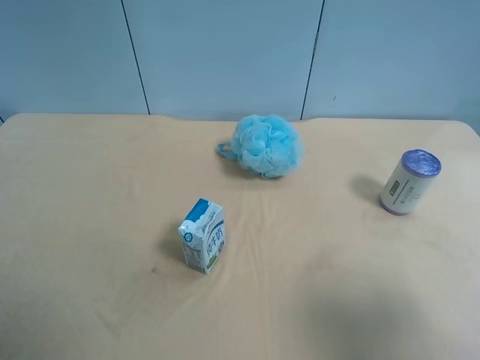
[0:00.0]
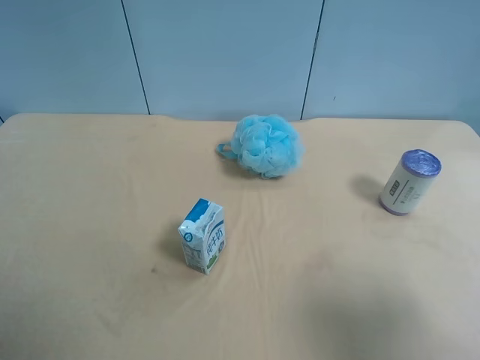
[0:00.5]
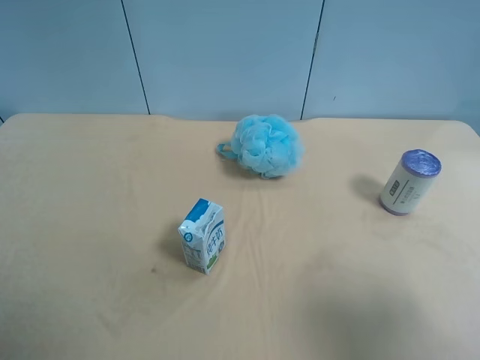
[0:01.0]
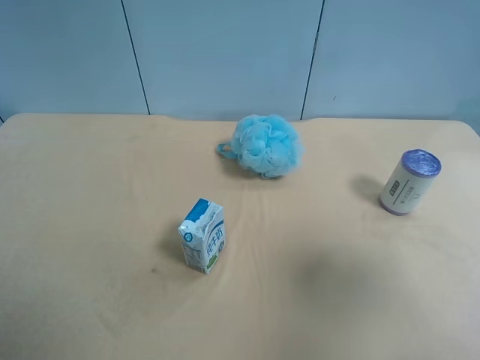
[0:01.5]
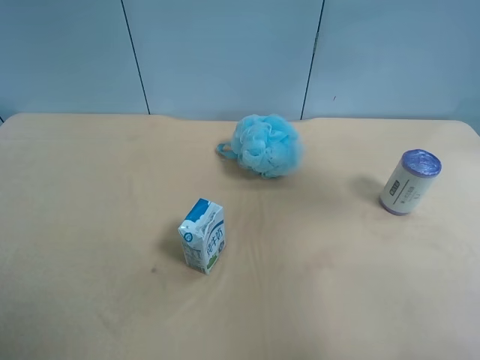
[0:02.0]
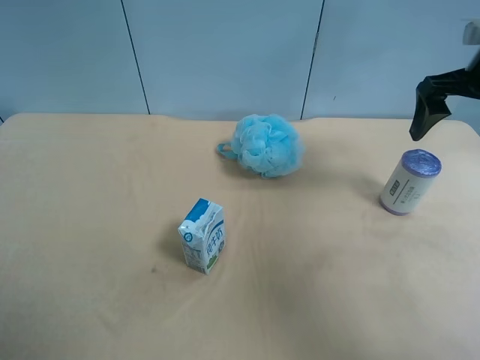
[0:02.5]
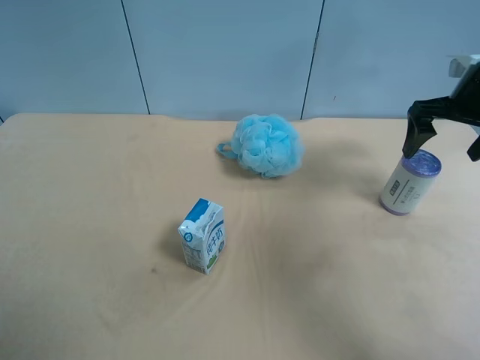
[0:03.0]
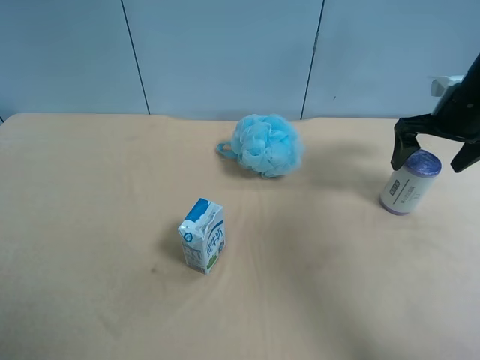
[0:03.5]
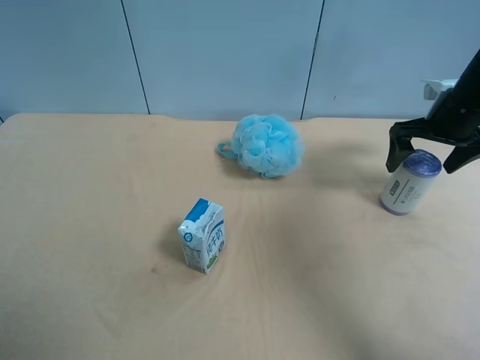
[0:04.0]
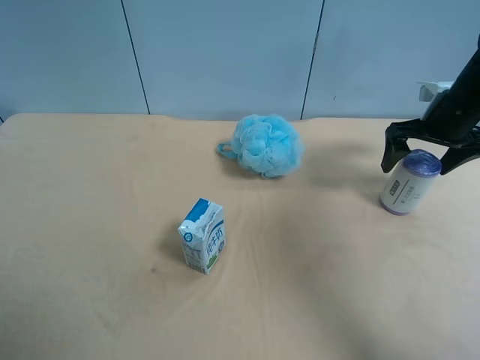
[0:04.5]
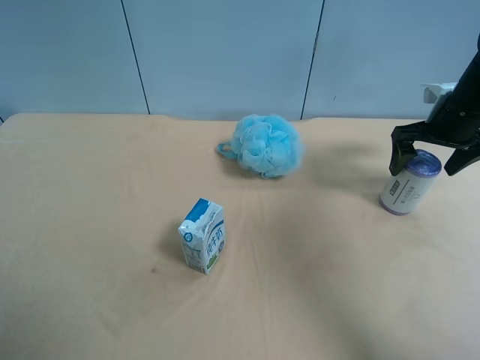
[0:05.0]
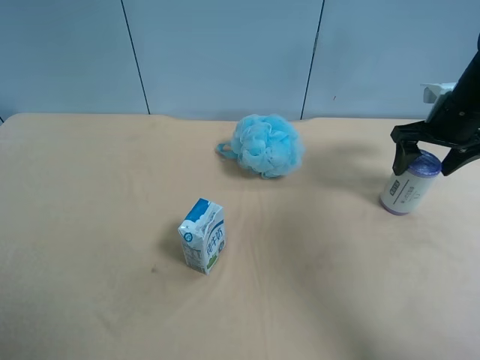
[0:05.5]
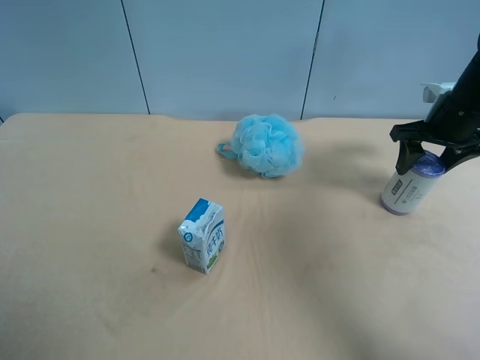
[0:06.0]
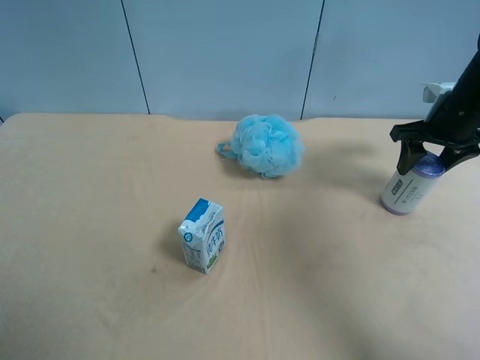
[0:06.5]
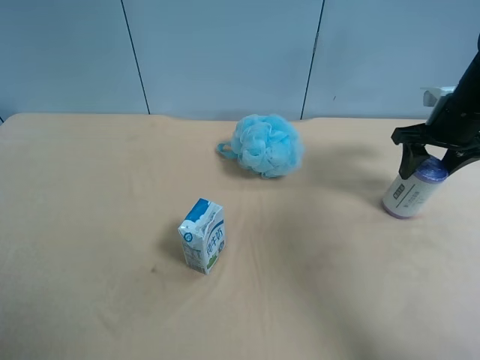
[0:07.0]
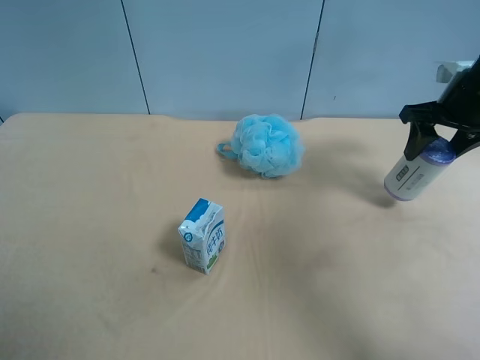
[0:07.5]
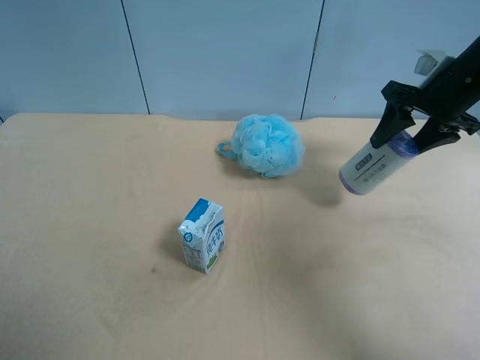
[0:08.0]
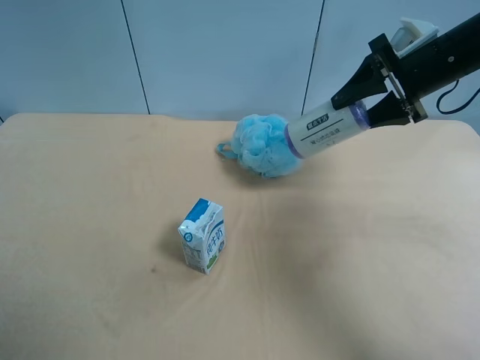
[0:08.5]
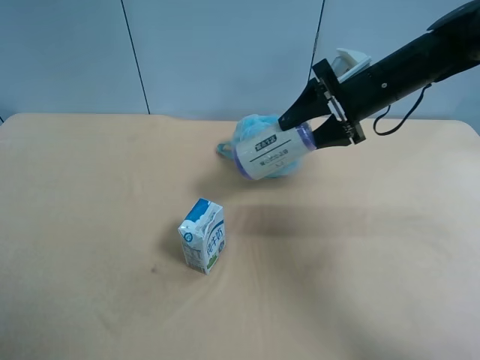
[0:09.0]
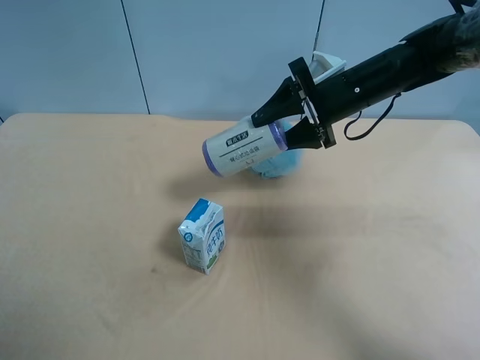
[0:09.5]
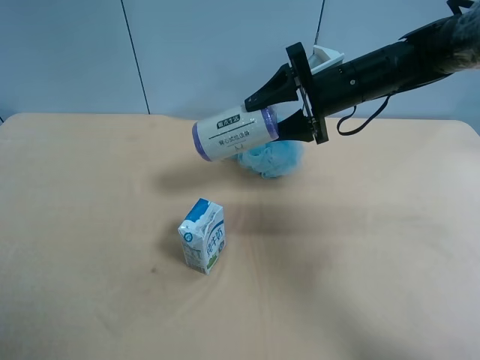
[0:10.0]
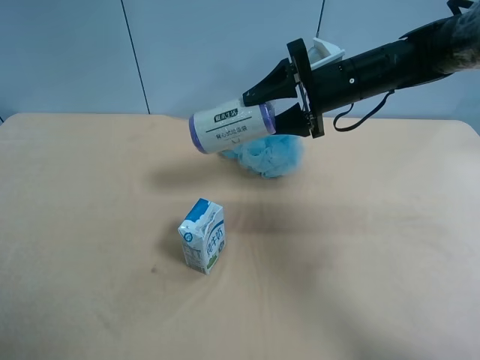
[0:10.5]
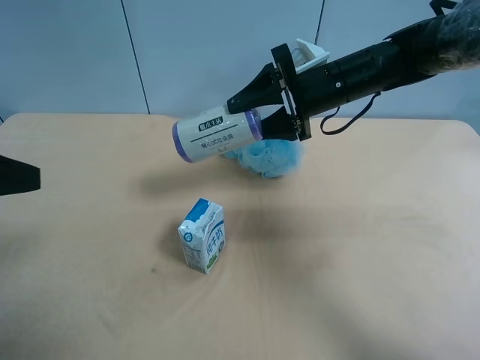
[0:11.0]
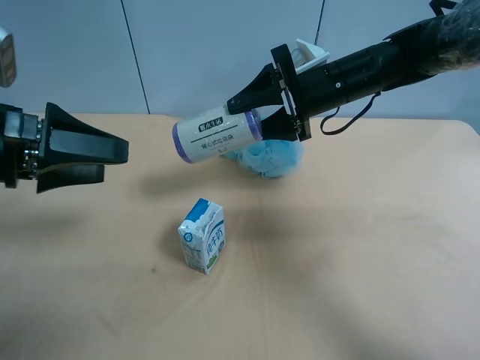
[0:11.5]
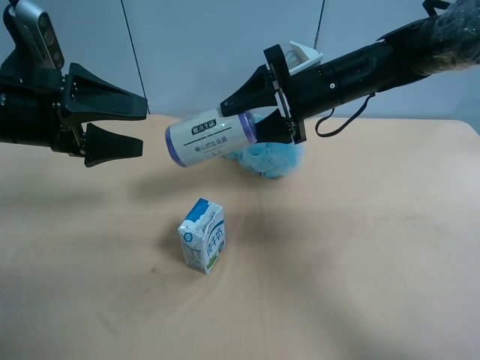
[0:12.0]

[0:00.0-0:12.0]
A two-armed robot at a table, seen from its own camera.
Task of the whole recording: use the right gripper to pick up the item and transfer it from the right gripper to the left gripper.
0.0 to 2.0 s: The right gripper shifts roughly 25 cm forward and upward.
2.0 to 4.0 s: The right gripper goes some 20 cm downward and forward.
4.0 to 6.0 s: The right gripper closes its fingers.
6.0 to 8.0 s: The right gripper goes approximately 5 cm upward.
8.0 to 10.0 s: The right gripper is displaced to the left by roughly 15 cm.
10.0 to 12.0 s: The left gripper shifts roughly 25 cm forward.

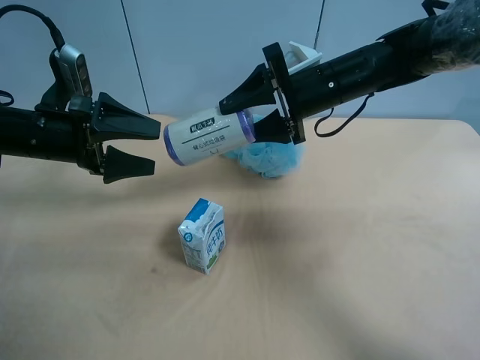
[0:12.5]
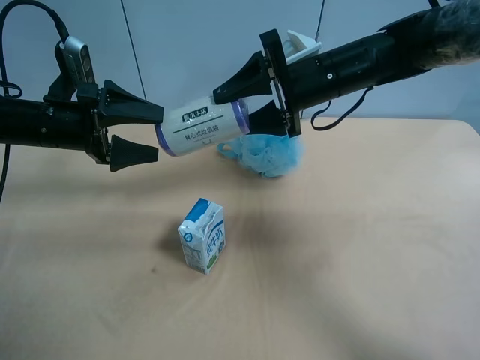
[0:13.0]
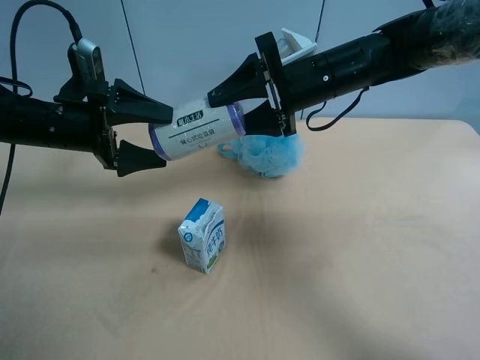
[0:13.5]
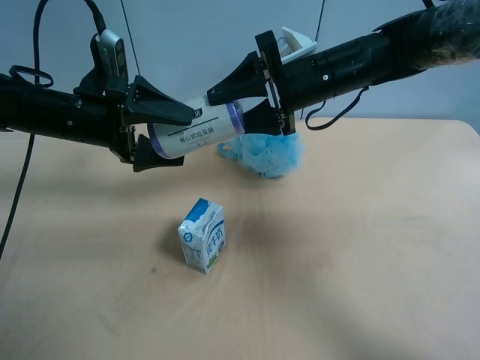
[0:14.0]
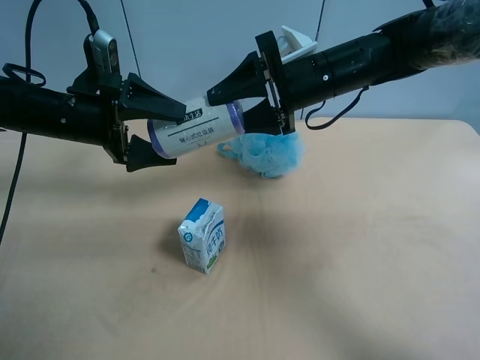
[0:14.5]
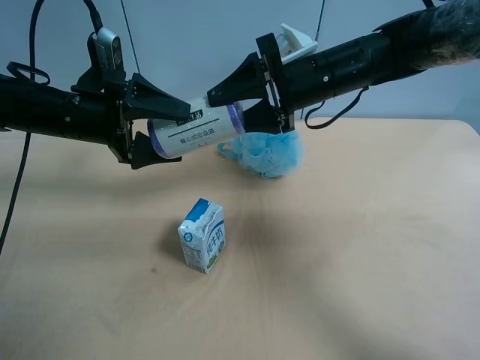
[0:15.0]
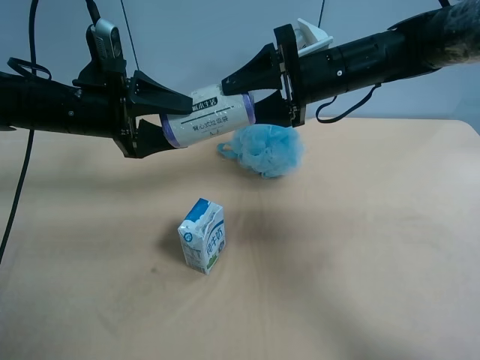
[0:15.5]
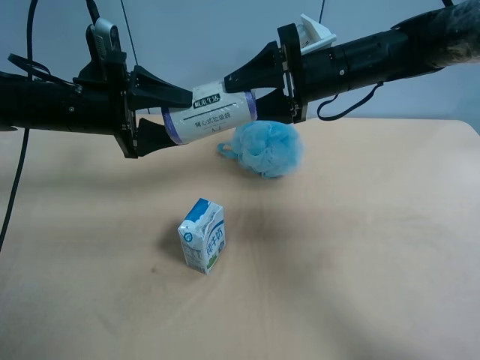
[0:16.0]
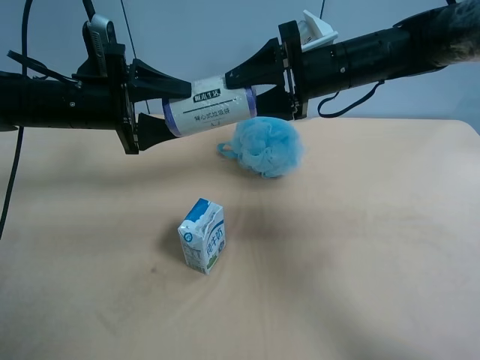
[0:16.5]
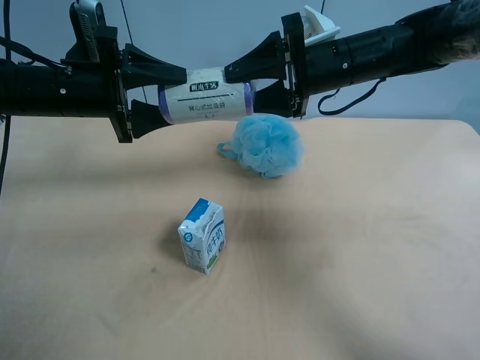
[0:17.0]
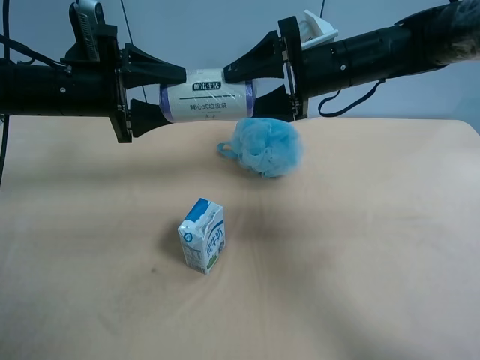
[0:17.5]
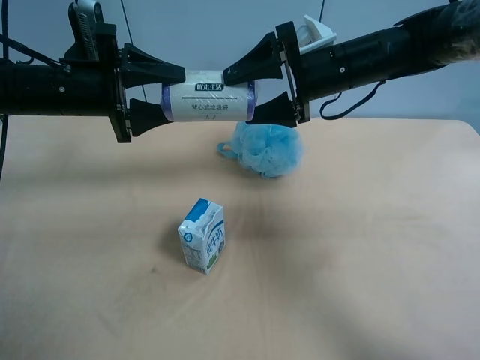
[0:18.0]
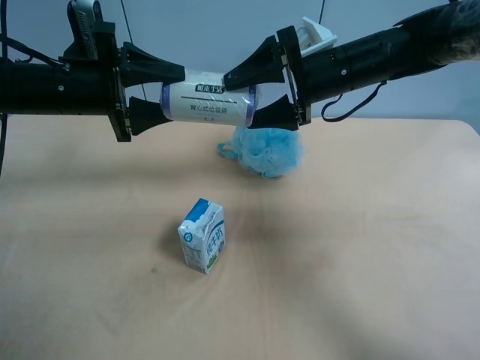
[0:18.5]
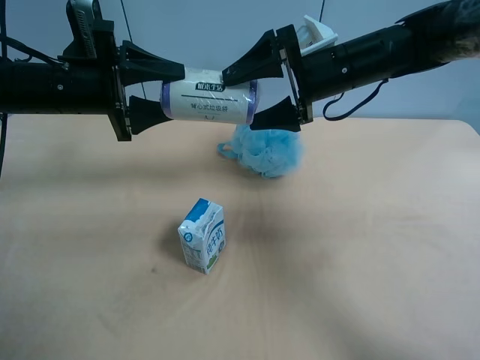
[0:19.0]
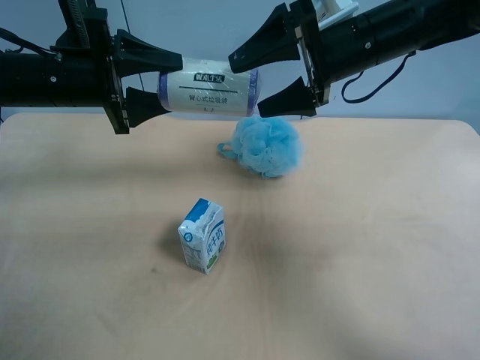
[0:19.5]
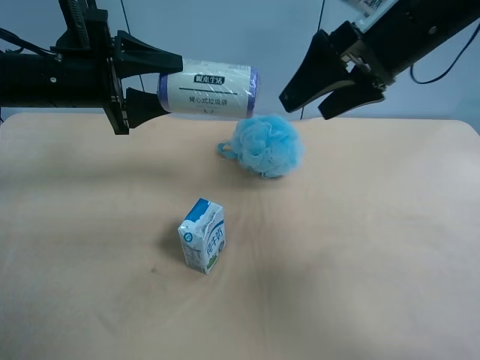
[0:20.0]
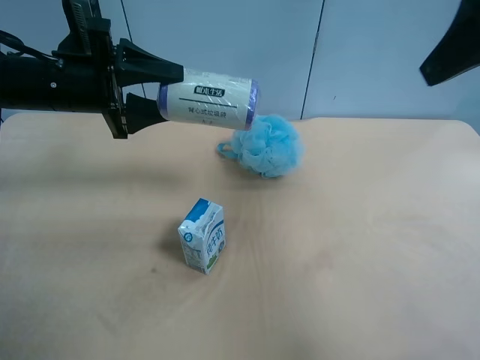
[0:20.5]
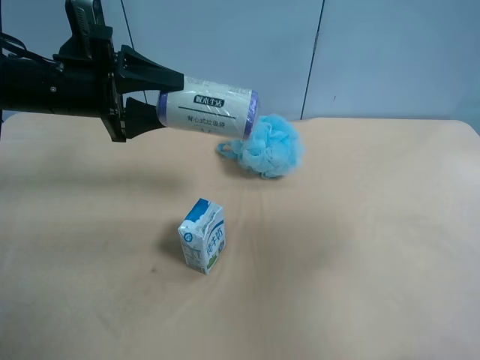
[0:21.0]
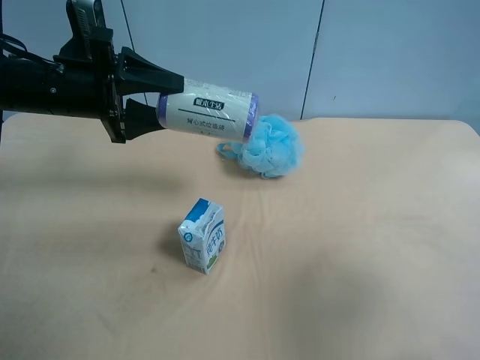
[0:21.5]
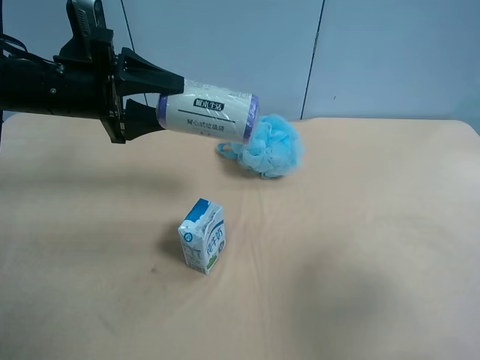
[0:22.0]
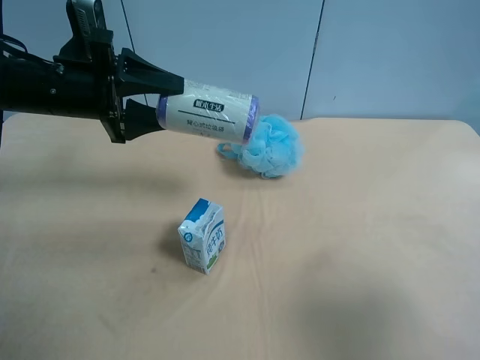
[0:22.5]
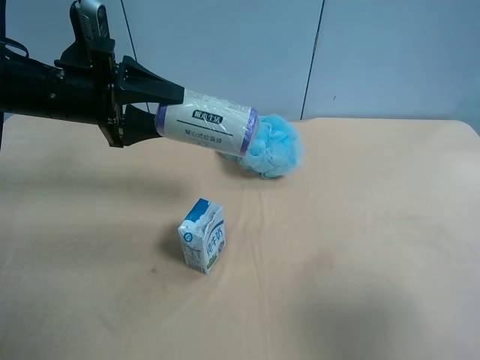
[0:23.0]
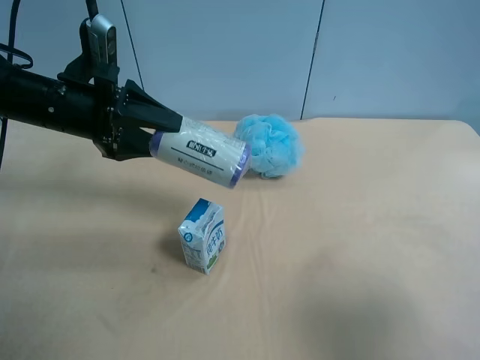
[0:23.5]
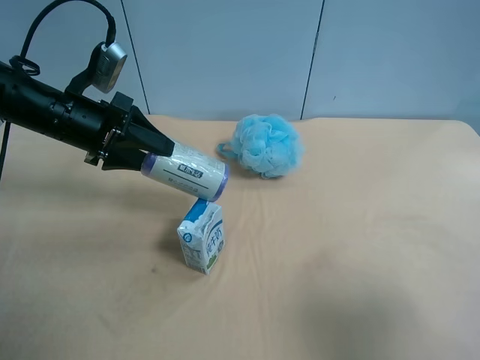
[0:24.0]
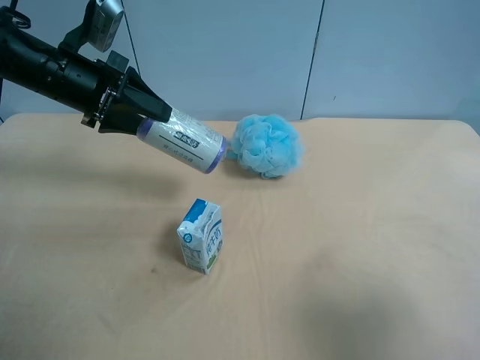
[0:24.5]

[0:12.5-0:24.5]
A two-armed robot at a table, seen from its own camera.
Task of the whole recording: use the right gripper to pick up the item and transfer it from the right gripper to the left gripper.
12.5 to 14.5 s: The grippers stay close to where they were, moving slightly.
14.5 to 16.5 s: The left gripper closes up.
16.5 to 18.5 s: The right gripper opens its fingers.
18.5 to 20.5 s: The right gripper heads upward, backward and to the right, covering some 25 cm.
20.5 to 22.5 s: The right gripper goes approximately 25 cm backward and downward.

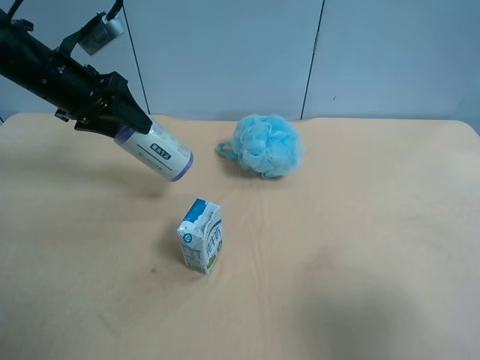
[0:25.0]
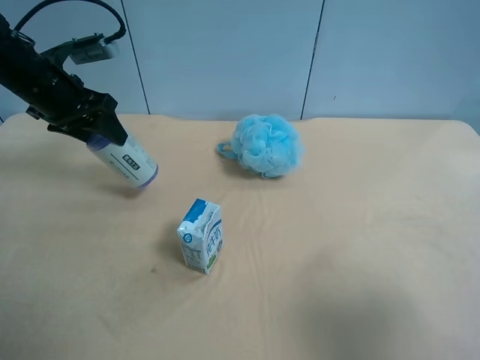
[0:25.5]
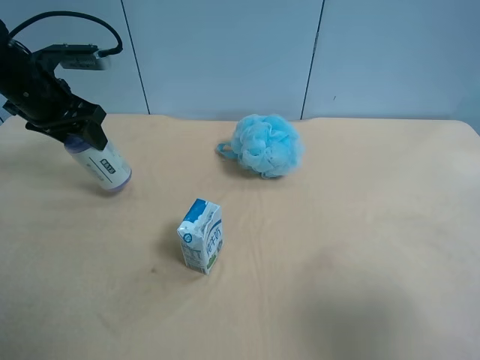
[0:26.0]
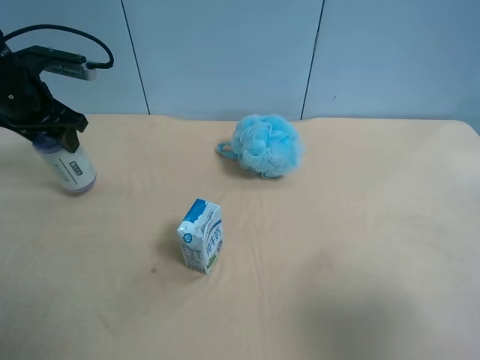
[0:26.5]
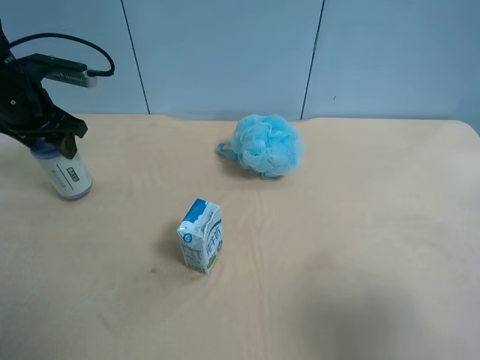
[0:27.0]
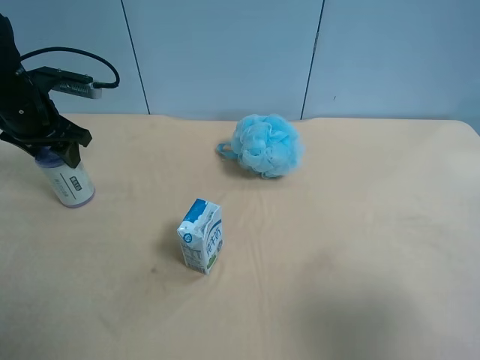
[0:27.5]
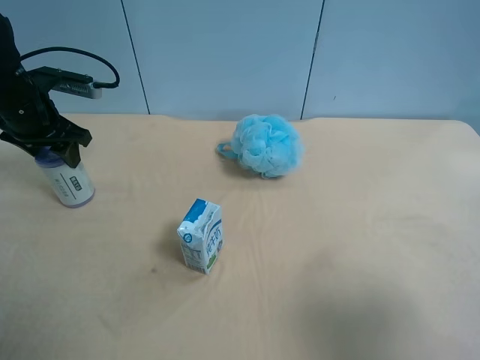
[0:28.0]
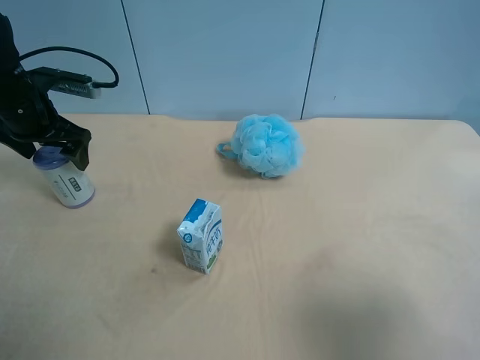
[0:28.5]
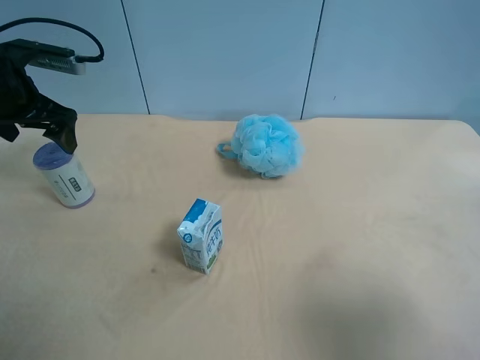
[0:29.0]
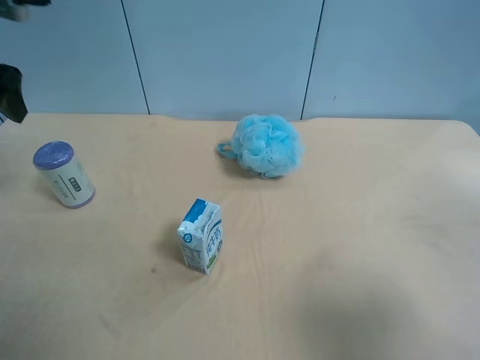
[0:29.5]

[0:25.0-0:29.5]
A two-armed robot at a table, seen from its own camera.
Task of the whole recording: use the right gripper to pick up the item and transfer it from the right gripper to the left gripper.
25.0 to 27.0 s: The left gripper travels to the left by roughly 5 cm.
27.0 to 29.5 s: The left gripper shifts roughly 15 cm upward and backward, and opens.
